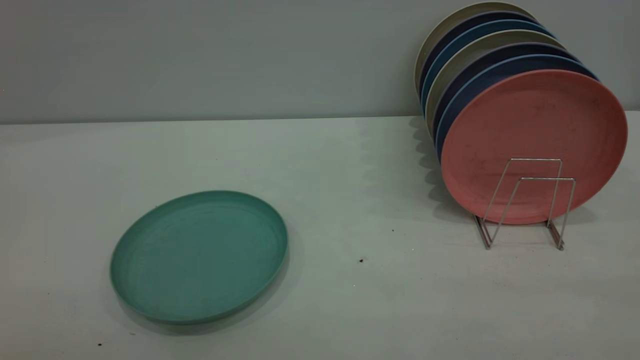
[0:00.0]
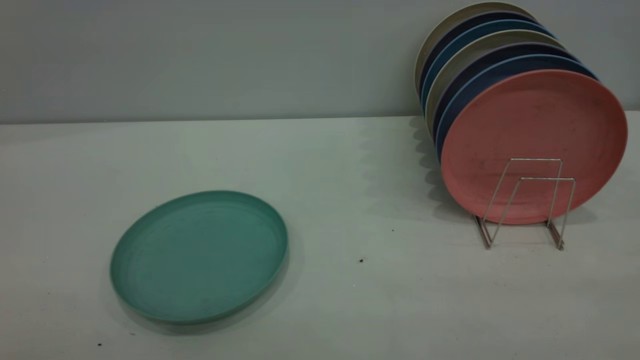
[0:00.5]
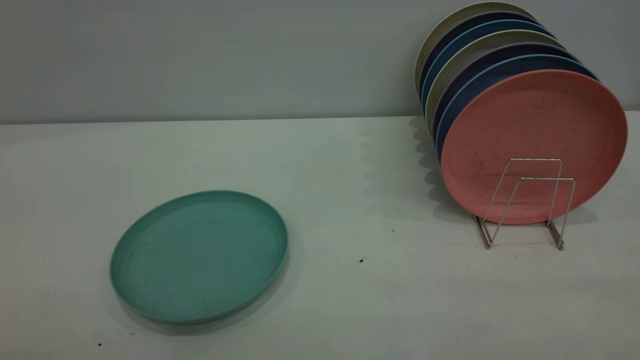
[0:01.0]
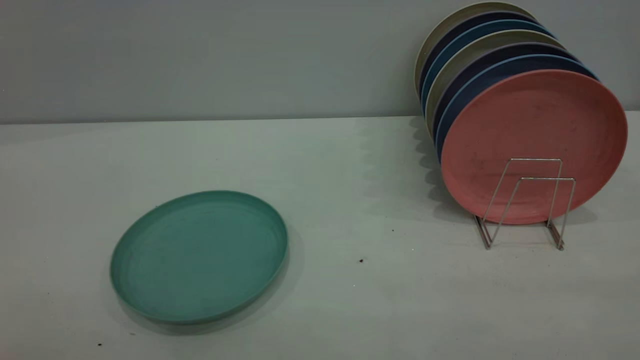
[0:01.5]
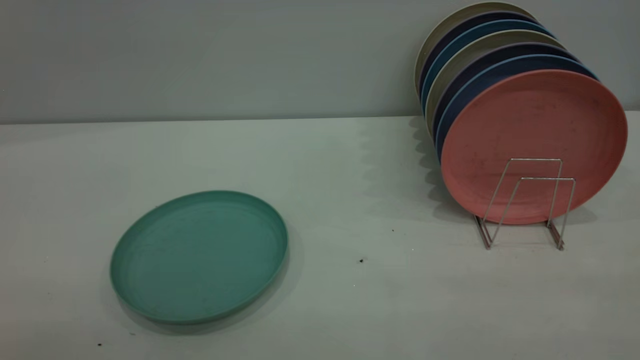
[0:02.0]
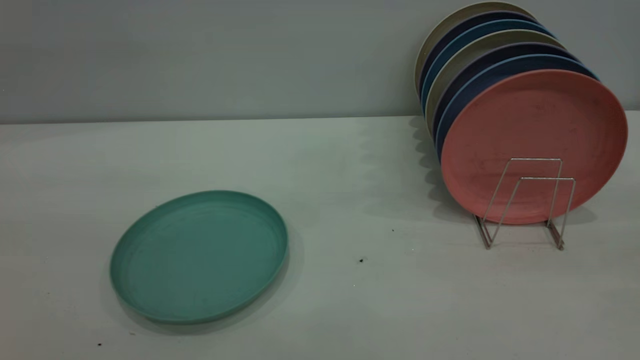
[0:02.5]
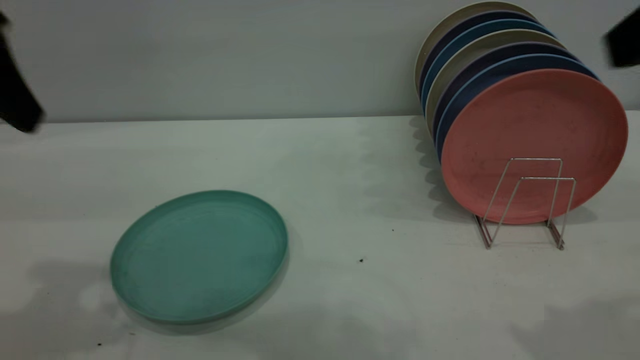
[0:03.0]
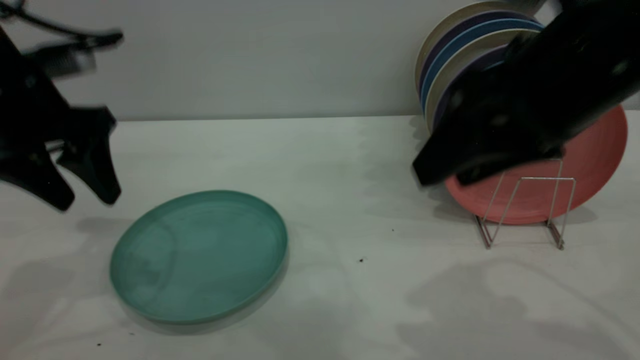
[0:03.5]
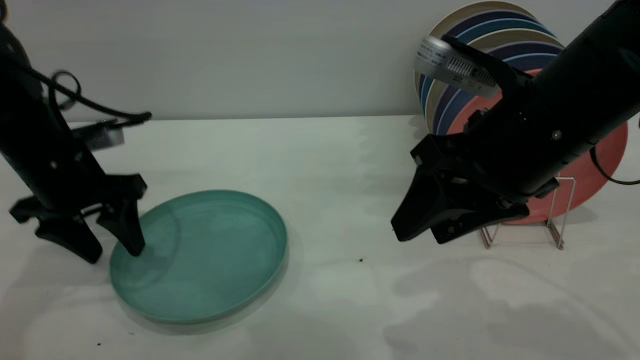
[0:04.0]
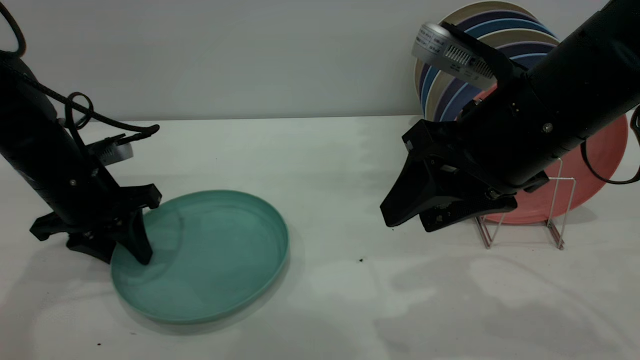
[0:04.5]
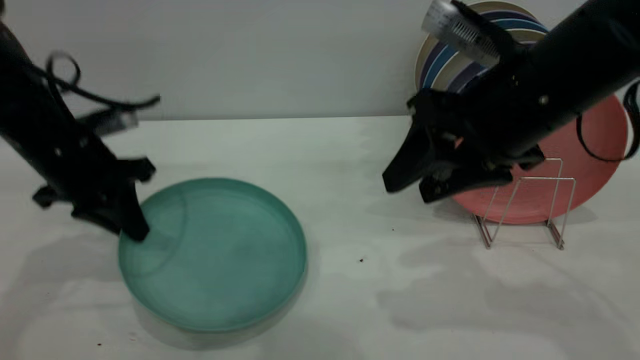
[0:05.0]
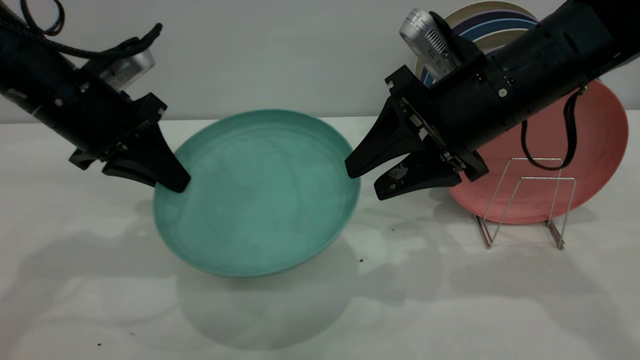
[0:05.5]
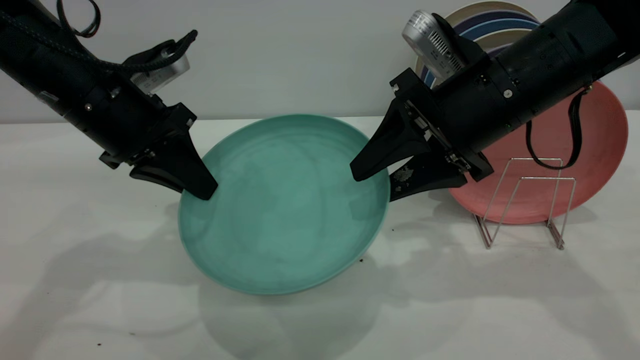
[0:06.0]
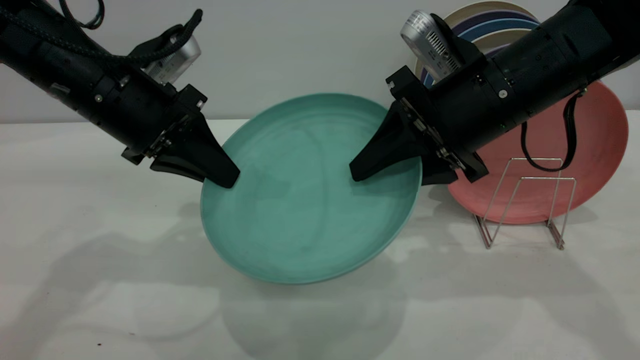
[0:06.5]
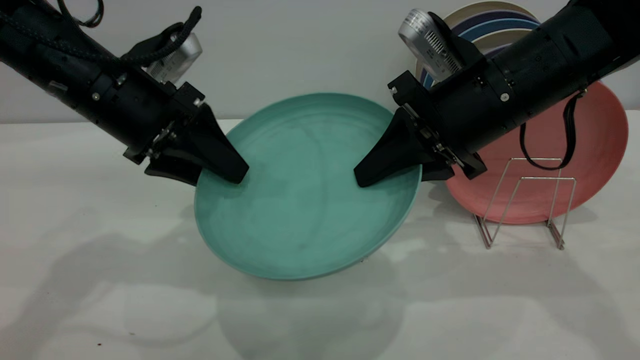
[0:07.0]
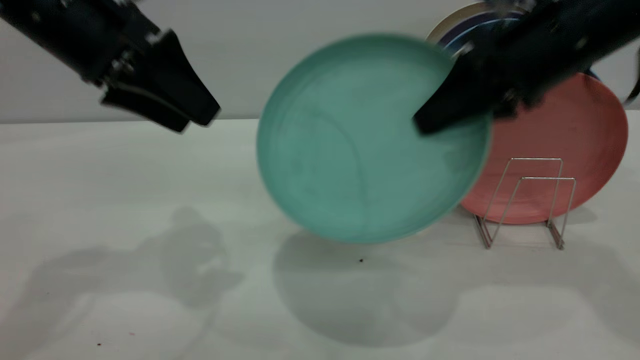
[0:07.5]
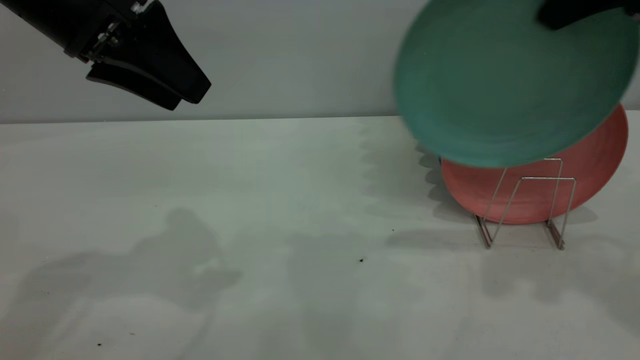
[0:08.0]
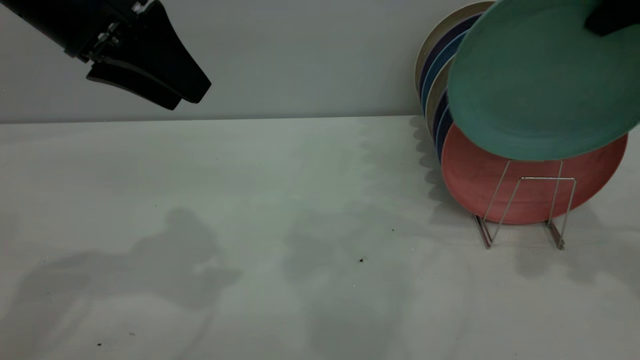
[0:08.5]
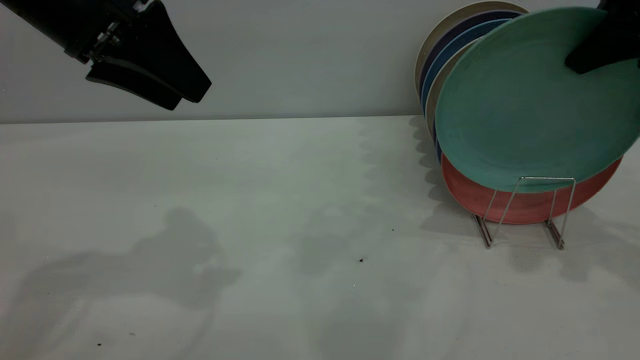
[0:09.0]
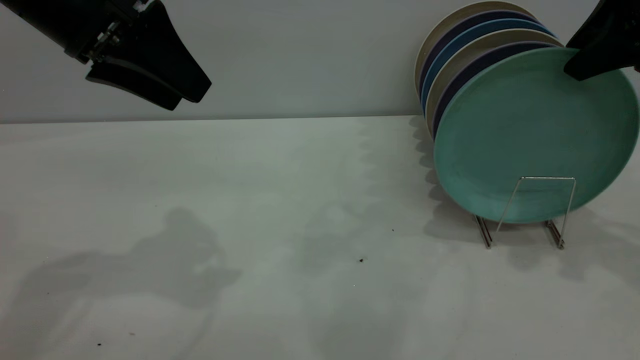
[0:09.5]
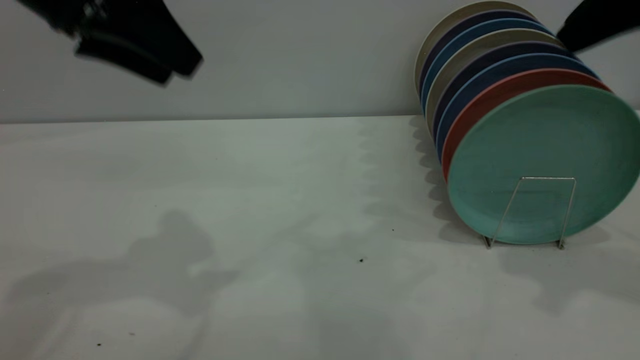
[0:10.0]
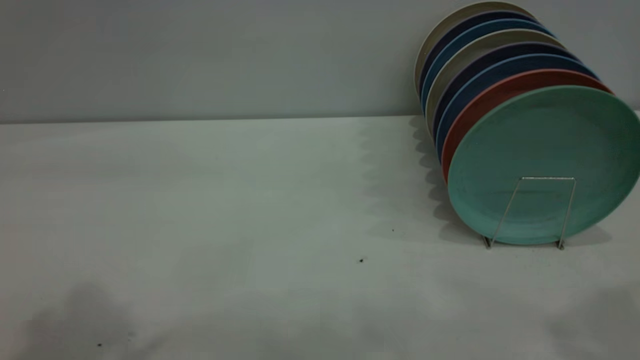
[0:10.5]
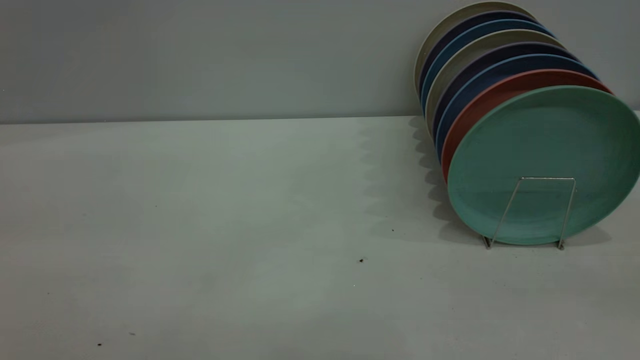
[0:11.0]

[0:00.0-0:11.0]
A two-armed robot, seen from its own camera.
Task of the whole recording: the left gripper grasp the green plate, the left gripper pass the green plate to the right gripper, and the right gripper place the green plate on the plate rack.
Step, 0:00.0 to 0:05.0: Pick up the plate with the left gripper.
Step, 0:05.5 to 0:07.0: Pass the plate from the left gripper to the right gripper.
Step, 0:07.5 to 0:10.0: Place the plate on the shelf.
0:02.0 to 0:03.5: The left gripper travels forward and downward by roughly 40 cm. The right gripper travels forward and to the left by about 30 cm, and opens.
0:03.5 to 0:05.5: The left gripper reaches about 10 cm downward, then returns, and closes up, while the right gripper goes roughly 10 cm forward and downward.
0:05.5 to 0:07.5: The right gripper goes approximately 10 cm upward and to the right, and closes; the left gripper goes some 10 cm upward, and opens its fingers.
0:07.5 to 0:09.0: The right gripper is displaced to the right by roughly 10 cm.
0:09.0 to 0:11.0: The right gripper shifts approximately 30 cm backward, and opens. Meanwhile the left gripper goes roughly 25 cm backward and upward.
